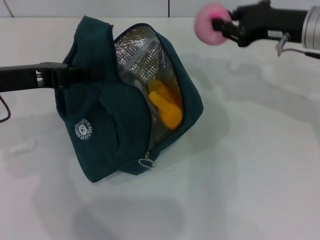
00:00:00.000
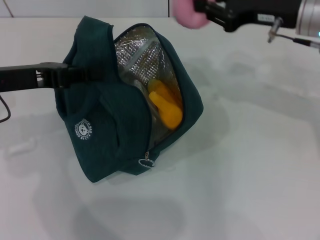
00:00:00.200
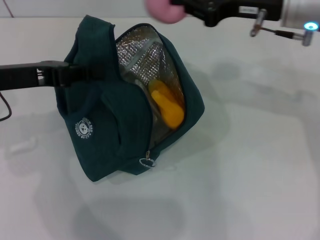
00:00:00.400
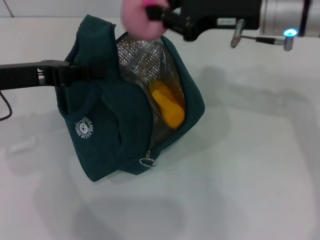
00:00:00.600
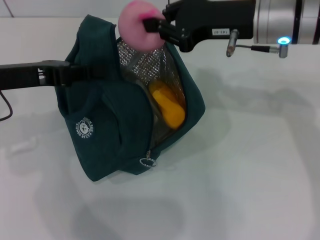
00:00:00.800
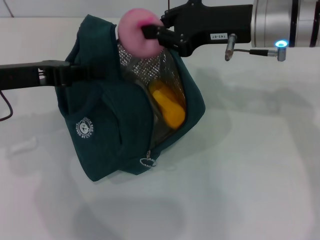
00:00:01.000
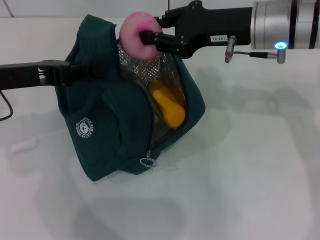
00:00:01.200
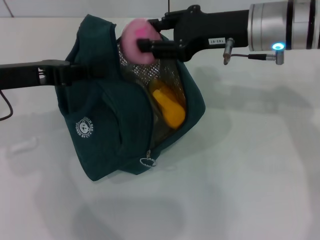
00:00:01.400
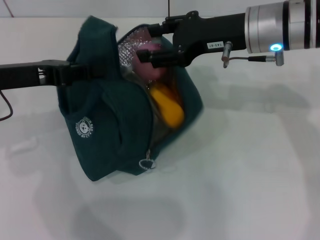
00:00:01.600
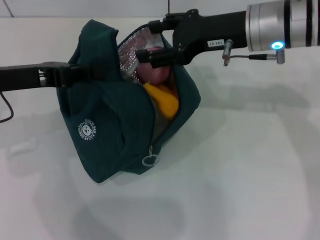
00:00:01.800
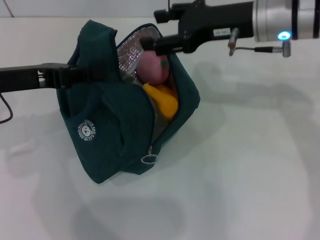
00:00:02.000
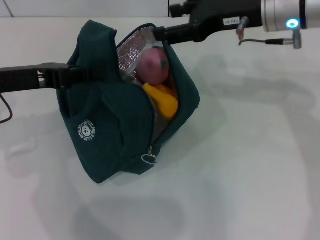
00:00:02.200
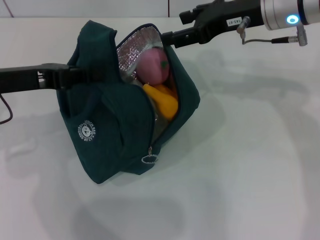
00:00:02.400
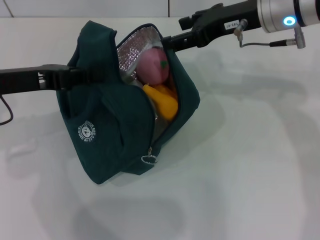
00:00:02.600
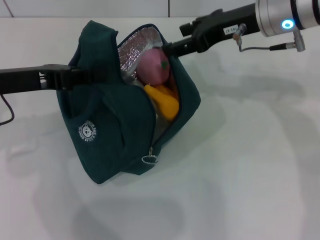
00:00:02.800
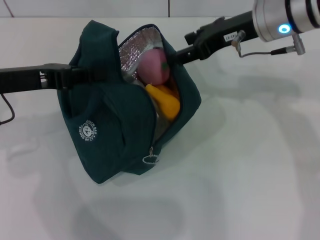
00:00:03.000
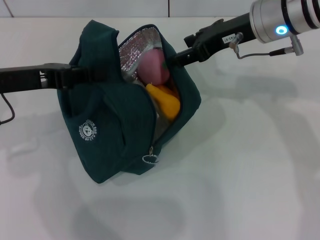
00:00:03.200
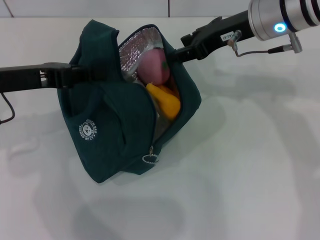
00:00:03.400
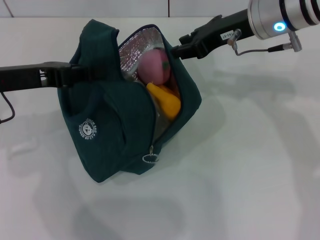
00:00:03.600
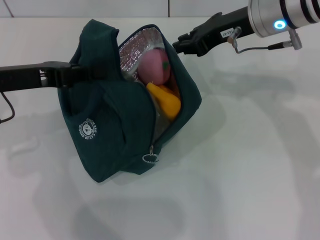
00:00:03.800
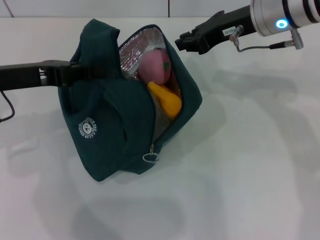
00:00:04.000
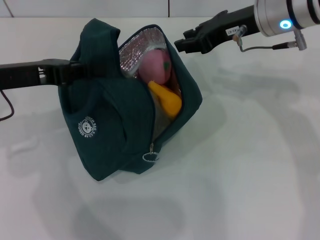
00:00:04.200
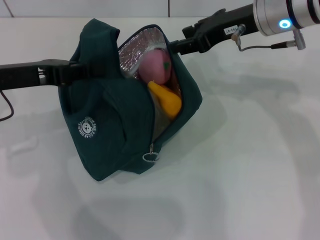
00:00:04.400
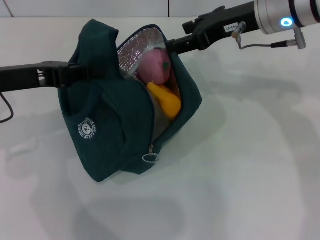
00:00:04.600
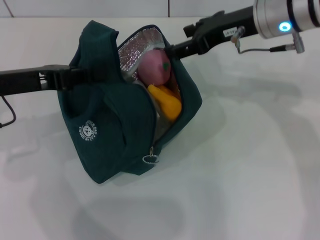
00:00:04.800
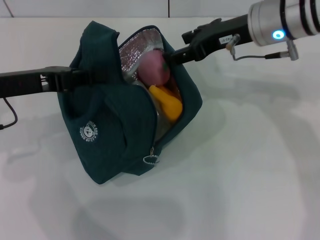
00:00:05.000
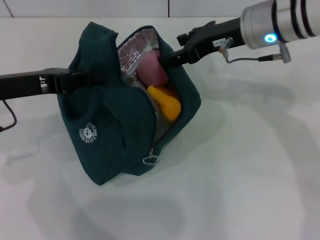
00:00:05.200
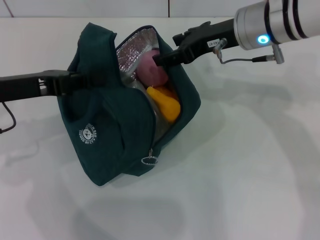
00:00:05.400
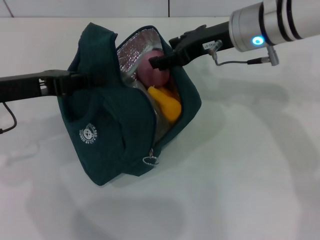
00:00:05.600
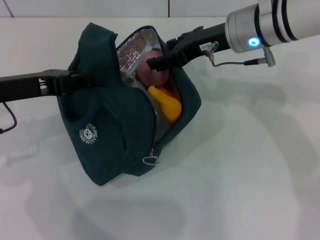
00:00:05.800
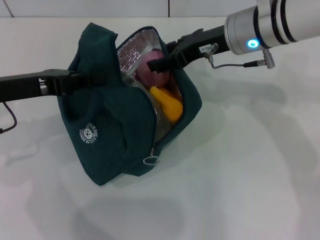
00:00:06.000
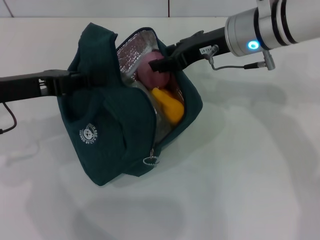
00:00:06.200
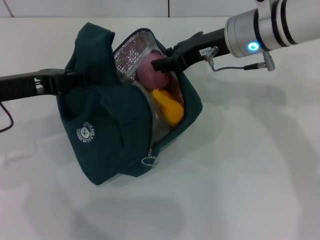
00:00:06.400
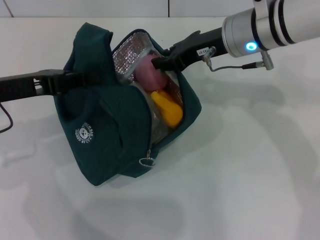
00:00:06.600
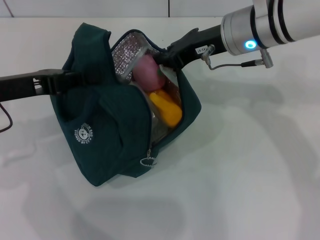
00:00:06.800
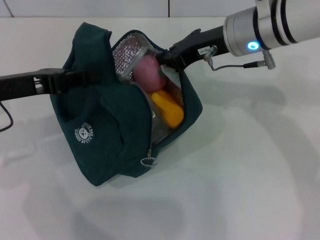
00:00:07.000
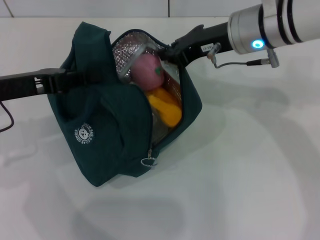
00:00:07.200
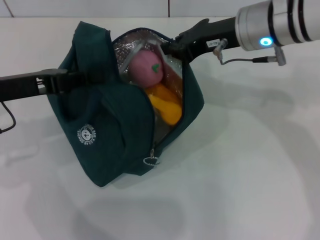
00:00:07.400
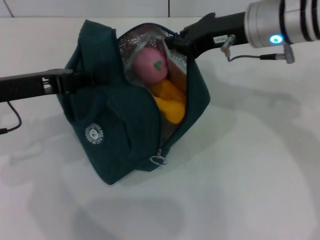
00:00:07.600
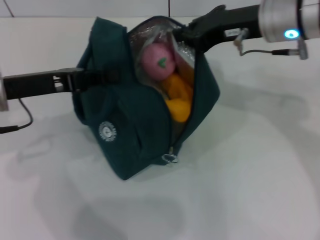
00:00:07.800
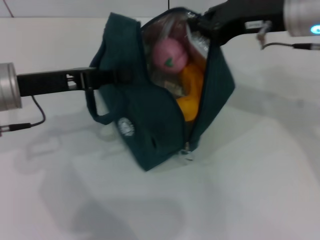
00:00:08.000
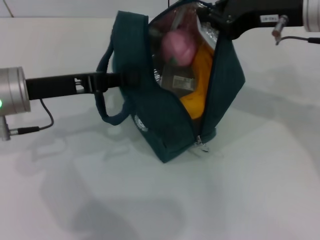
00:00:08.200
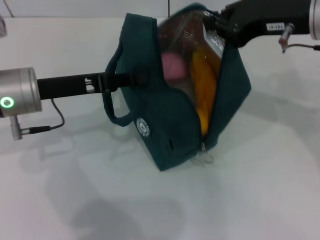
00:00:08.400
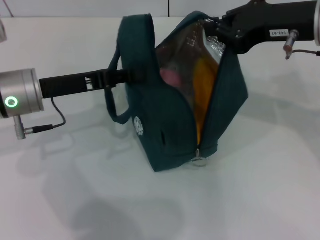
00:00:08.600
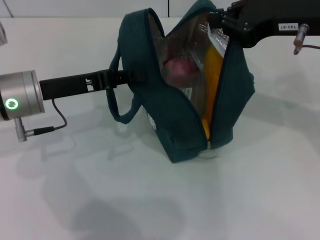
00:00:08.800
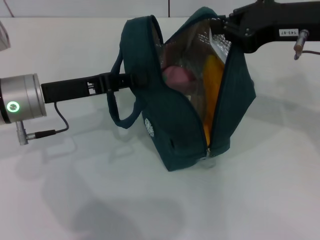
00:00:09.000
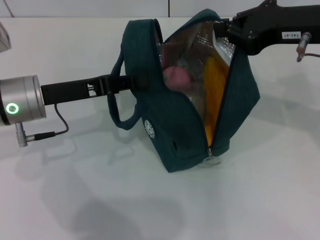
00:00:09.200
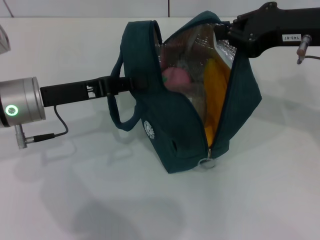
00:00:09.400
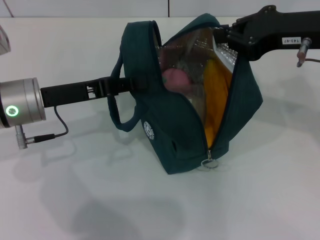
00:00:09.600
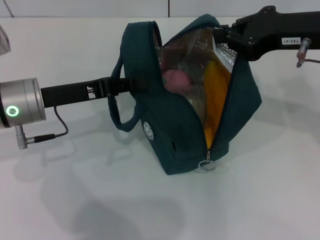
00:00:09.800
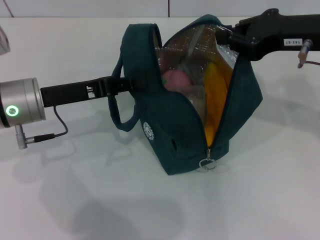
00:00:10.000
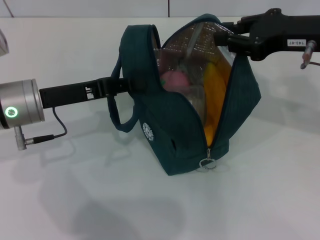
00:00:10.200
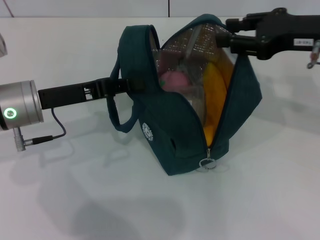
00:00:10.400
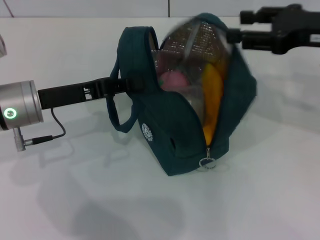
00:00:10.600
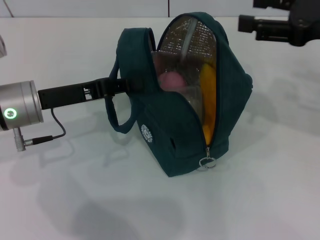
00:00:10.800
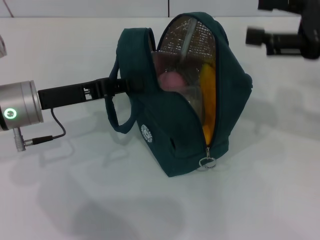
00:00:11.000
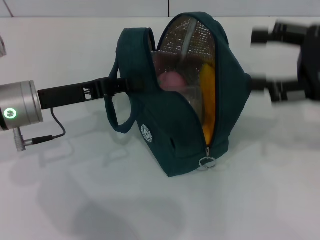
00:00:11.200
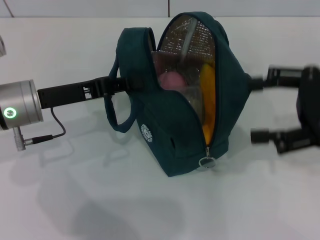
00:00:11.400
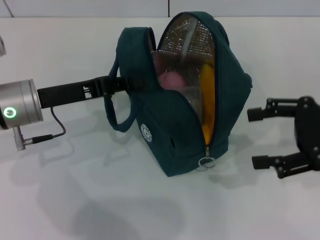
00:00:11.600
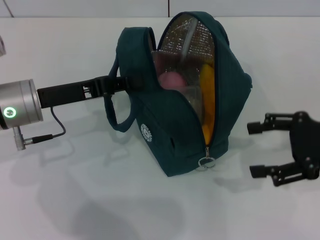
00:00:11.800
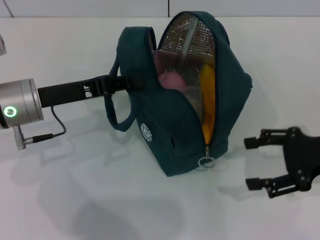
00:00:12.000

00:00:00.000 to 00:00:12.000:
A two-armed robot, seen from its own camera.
Step, 00:00:02.000 to 00:00:10.600: Hold the lunch bag with your right hand.
00:00:00.000 to 00:00:01.600: The right gripper travels to the left by about 10 cm.
00:00:01.600 to 00:00:03.000: The right gripper opens.
00:00:03.000 to 00:00:04.400: The right gripper closes its fingers.
00:00:04.400 to 00:00:06.000: The right gripper opens up.
00:00:06.000 to 00:00:07.600: The right gripper closes its fingers.
00:00:07.600 to 00:00:09.000: The left gripper ends up some 5 cm from where it was. The right gripper goes some 5 cm to the right.
00:00:09.000 to 00:00:10.400: There are only small adjustments of the grippers.
00:00:10.400 to 00:00:12.000: The right gripper is displaced downward, backward and to the right by roughly 15 cm, and opens up.

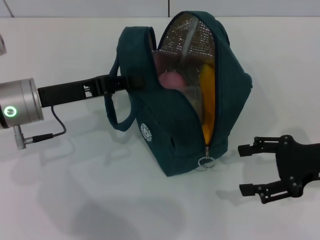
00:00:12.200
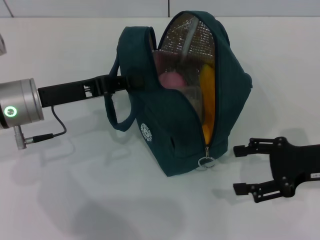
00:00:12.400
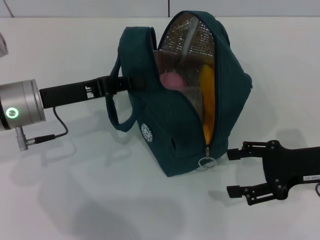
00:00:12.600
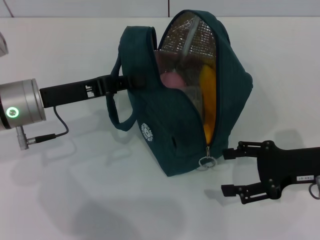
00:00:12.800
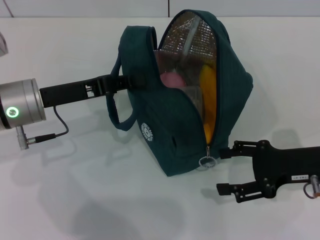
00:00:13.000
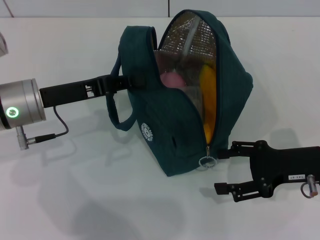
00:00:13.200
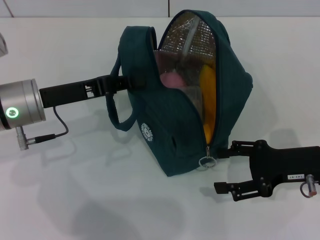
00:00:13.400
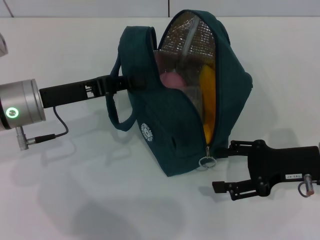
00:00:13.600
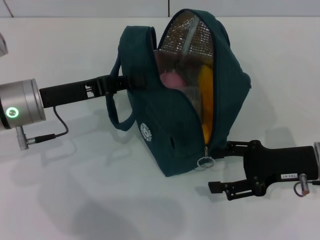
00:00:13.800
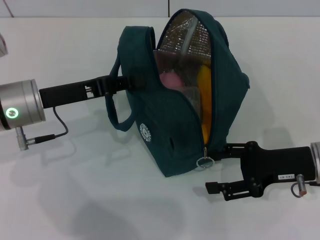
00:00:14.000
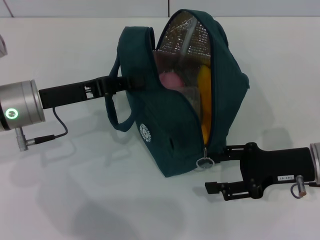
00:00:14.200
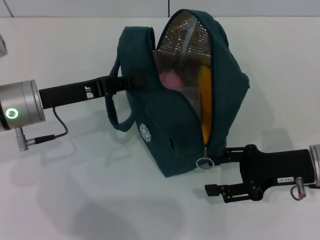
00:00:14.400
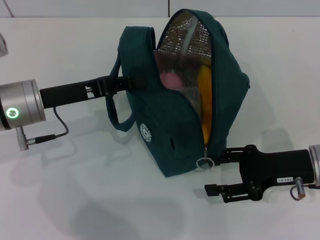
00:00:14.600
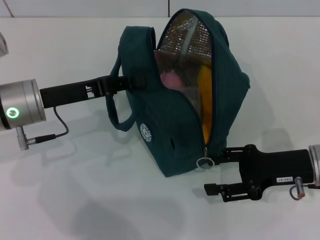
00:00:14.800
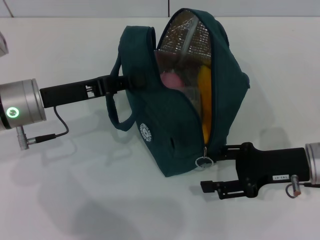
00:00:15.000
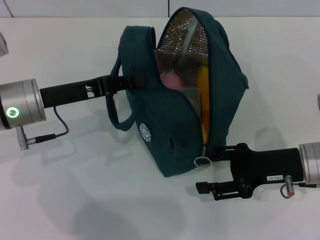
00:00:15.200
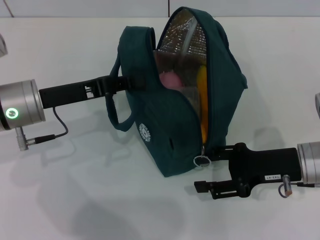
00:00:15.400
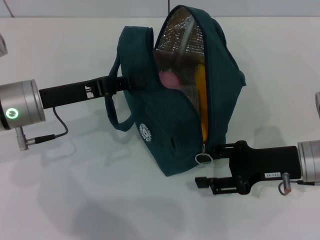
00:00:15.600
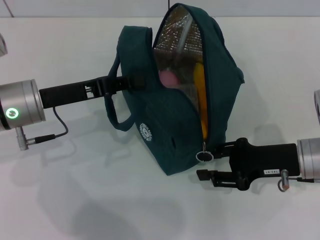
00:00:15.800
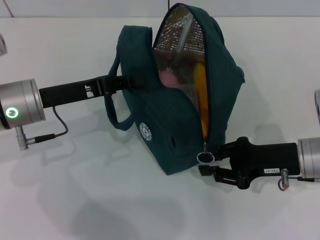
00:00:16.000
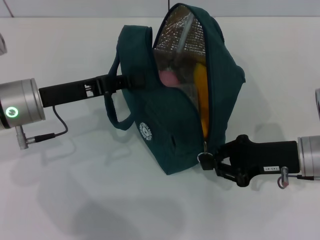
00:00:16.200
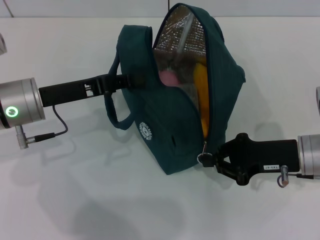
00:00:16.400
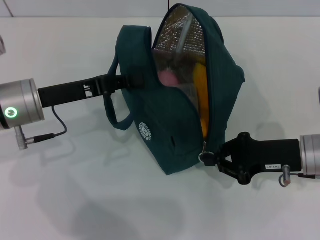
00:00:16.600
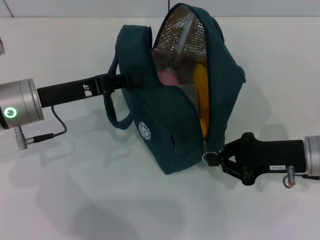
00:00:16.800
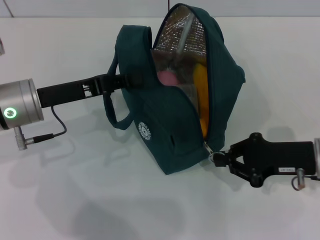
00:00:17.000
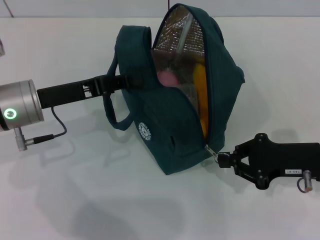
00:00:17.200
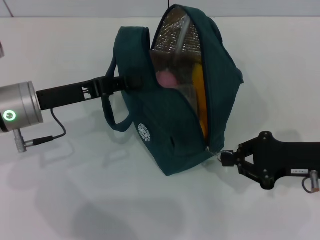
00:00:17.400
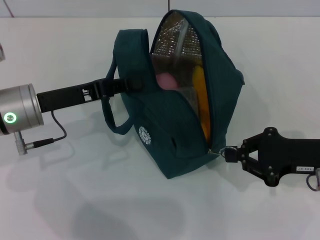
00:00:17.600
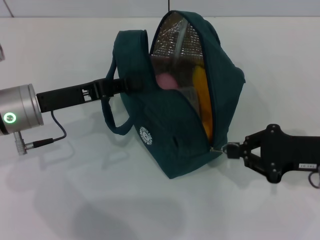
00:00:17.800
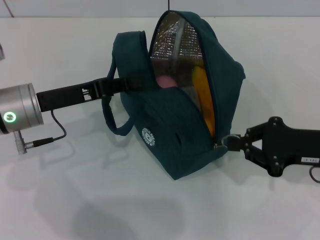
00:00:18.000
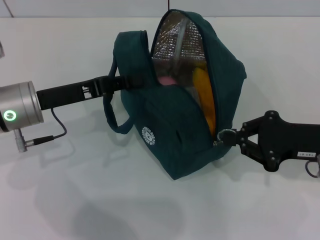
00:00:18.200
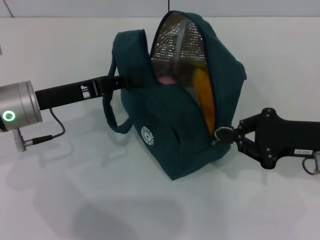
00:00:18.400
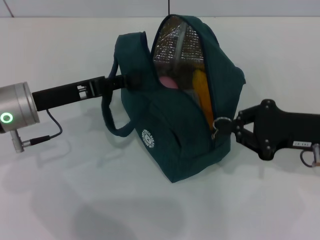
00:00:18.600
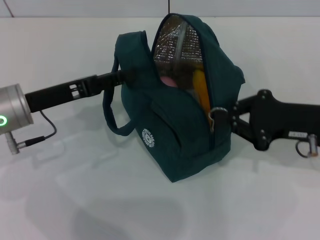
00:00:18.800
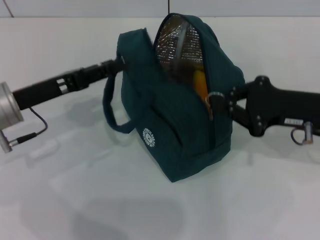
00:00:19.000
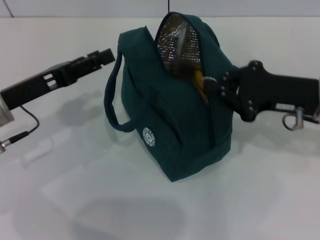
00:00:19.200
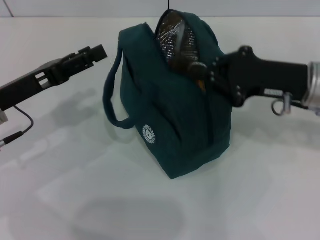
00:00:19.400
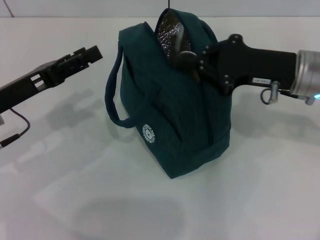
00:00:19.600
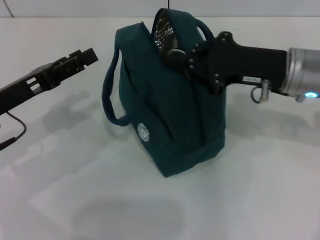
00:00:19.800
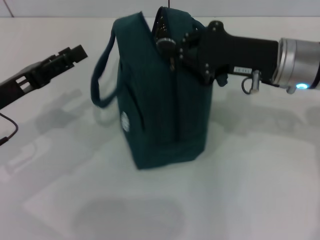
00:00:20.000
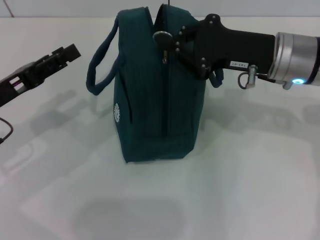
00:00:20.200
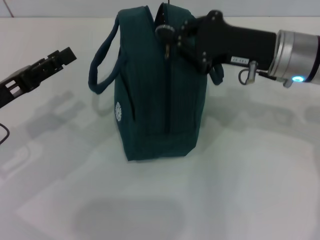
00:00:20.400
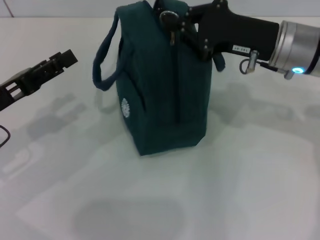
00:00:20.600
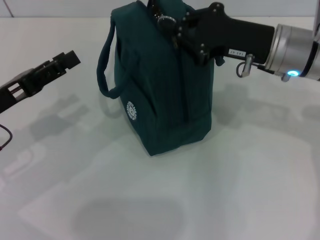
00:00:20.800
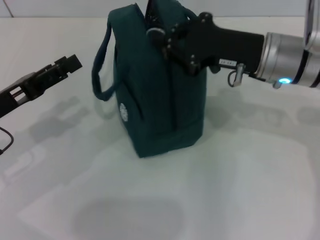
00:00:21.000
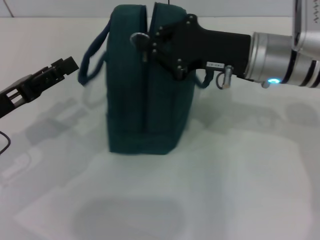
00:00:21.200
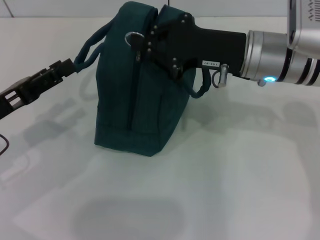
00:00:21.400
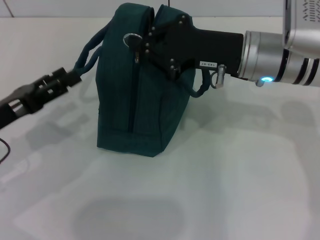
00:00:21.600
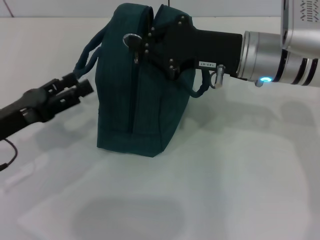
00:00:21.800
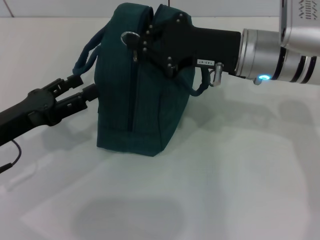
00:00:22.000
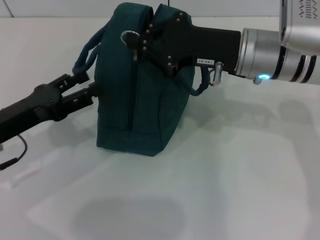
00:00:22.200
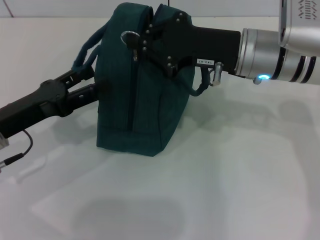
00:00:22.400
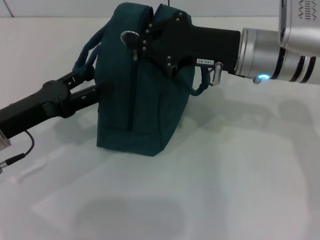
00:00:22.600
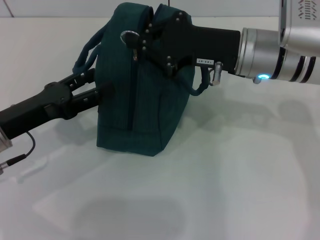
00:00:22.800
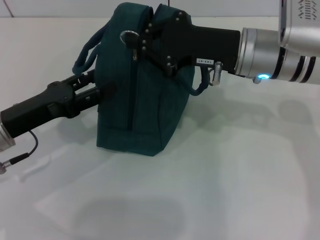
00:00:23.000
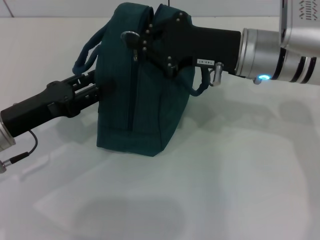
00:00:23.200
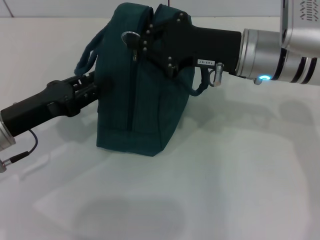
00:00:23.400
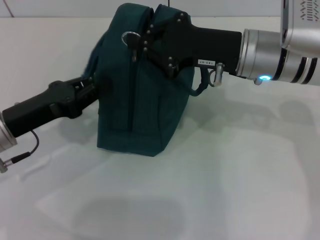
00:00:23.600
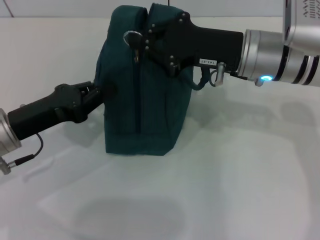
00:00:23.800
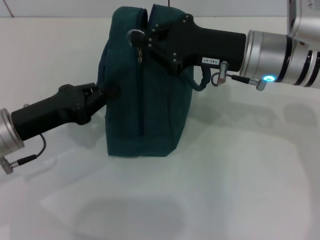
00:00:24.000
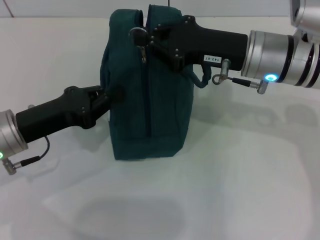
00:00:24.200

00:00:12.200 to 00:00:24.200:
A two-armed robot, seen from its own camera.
Step, 00:00:12.200 to 00:00:18.800: Hold the lunch bag with your left hand.
00:00:12.200 to 00:00:13.800: The right gripper shifts by roughly 5 cm.
00:00:13.800 to 00:00:15.200: There are only small adjustments of the grippers.
00:00:15.200 to 00:00:16.600: The right gripper closes up.
00:00:16.600 to 00:00:18.200: The right gripper ends up roughly 5 cm from where it was.
00:00:18.200 to 00:00:19.800: The left gripper heads to the left, covering approximately 5 cm, and opens up. The right gripper shifts some 10 cm to the left, forward and upward.
00:00:21.200 to 00:00:22.600: The grippers stay close to where they were, moving slightly.
00:00:22.600 to 00:00:24.200: The left gripper closes up.
